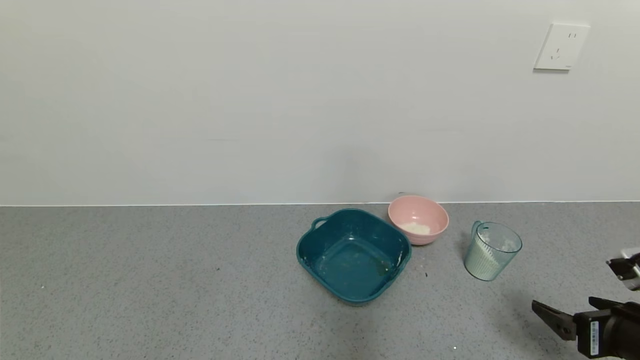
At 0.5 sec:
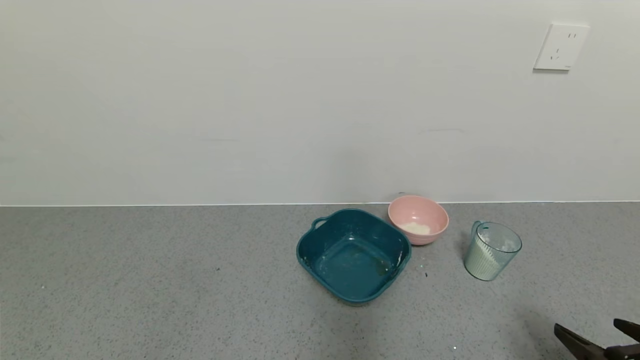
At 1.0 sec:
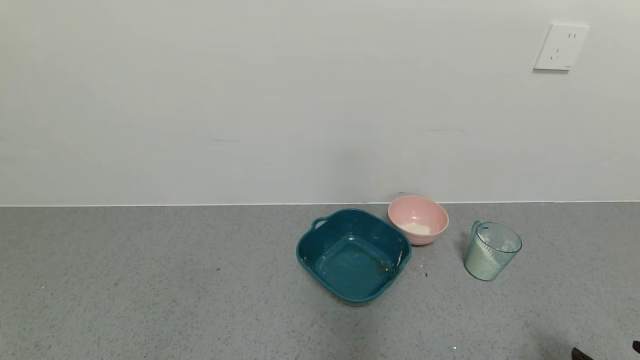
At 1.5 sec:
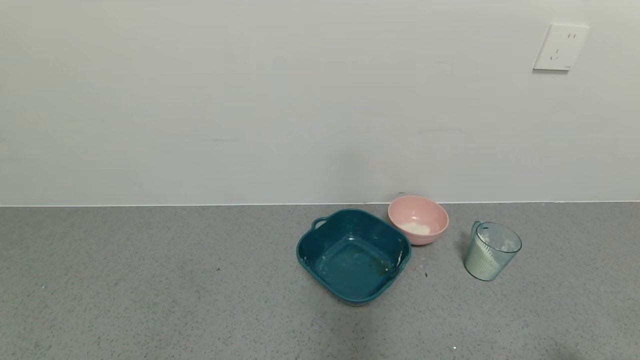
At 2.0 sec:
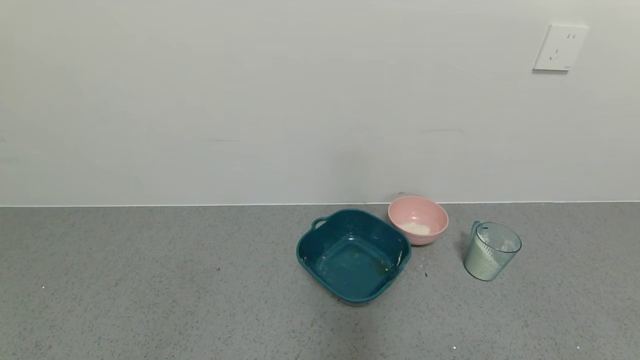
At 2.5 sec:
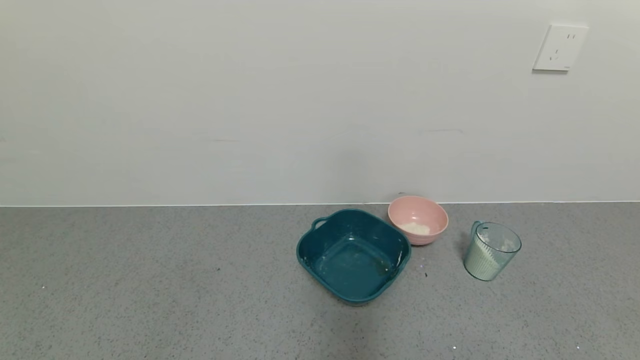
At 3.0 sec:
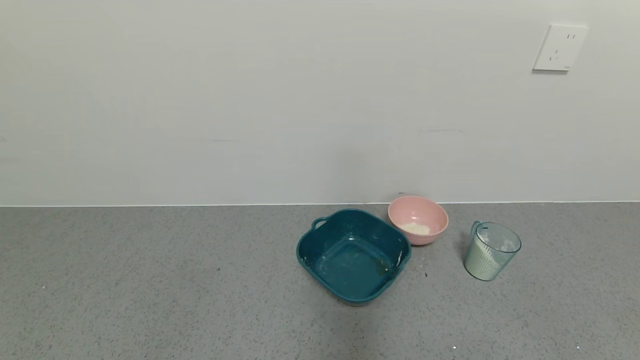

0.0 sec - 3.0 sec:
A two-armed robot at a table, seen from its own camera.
Task of the whole recording: use a gripper to pick up the cup and pour the powder into a bowl or tray.
0.0 sec - 1.5 sec: The right gripper shifts about 10 cm backward.

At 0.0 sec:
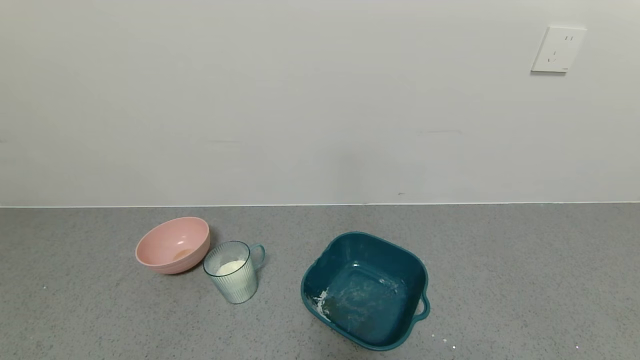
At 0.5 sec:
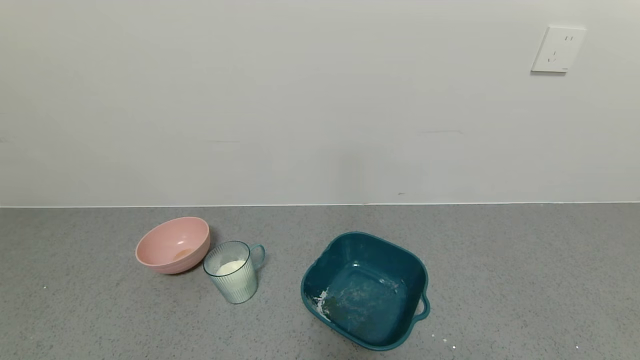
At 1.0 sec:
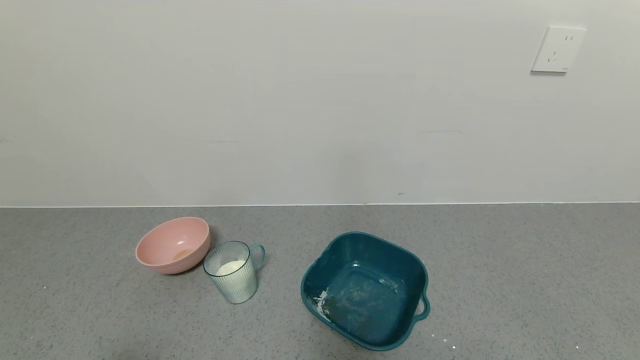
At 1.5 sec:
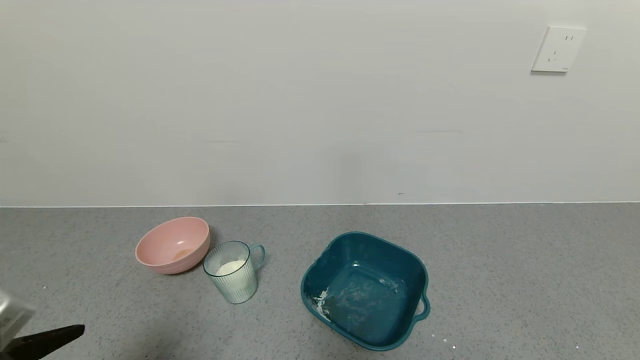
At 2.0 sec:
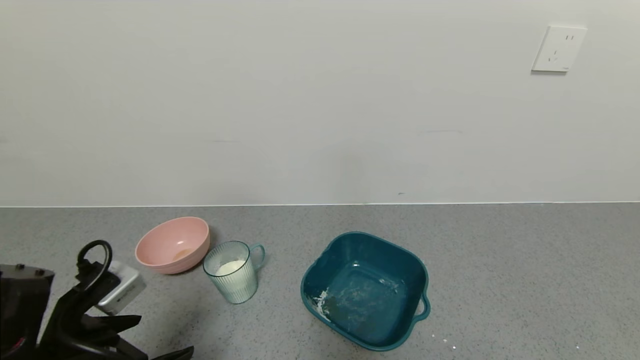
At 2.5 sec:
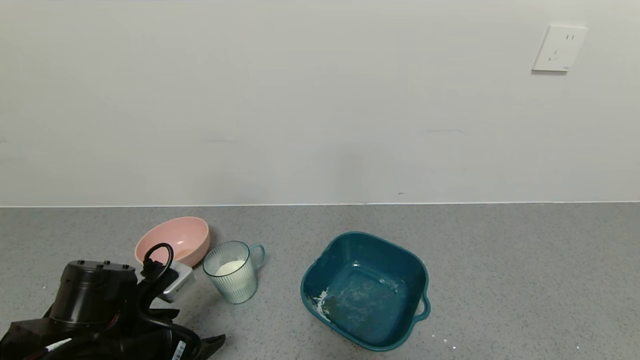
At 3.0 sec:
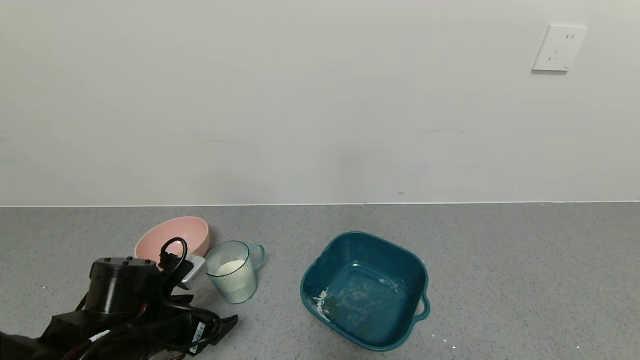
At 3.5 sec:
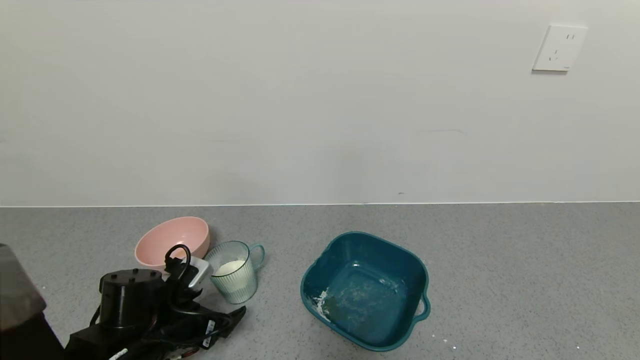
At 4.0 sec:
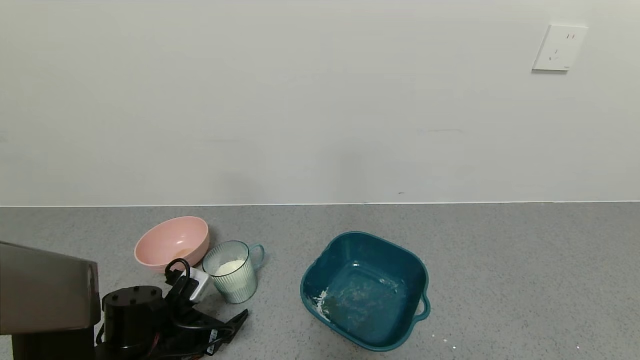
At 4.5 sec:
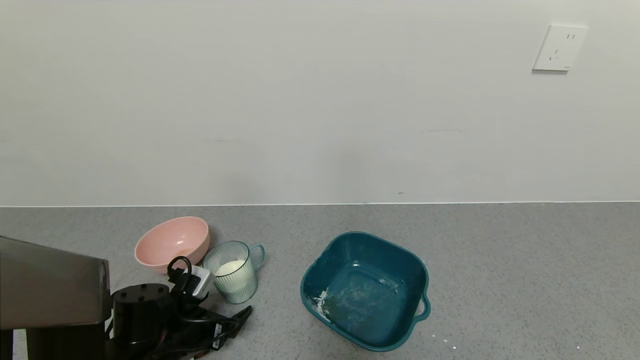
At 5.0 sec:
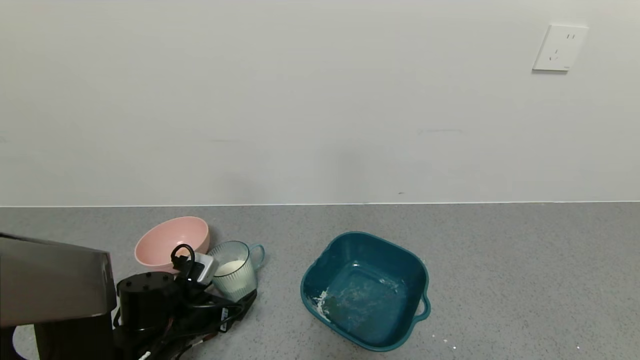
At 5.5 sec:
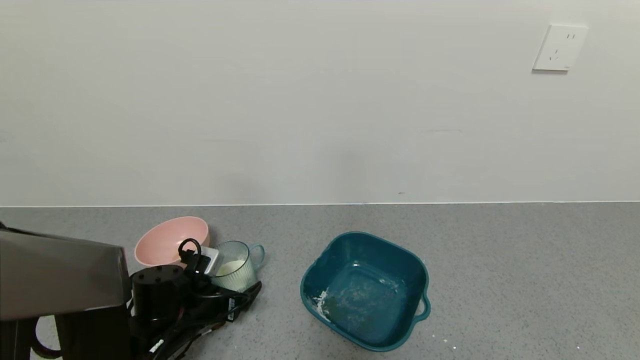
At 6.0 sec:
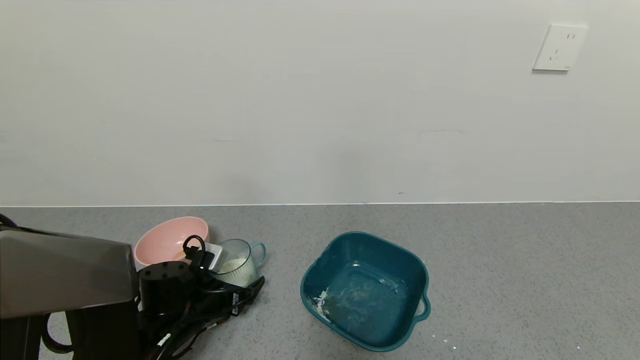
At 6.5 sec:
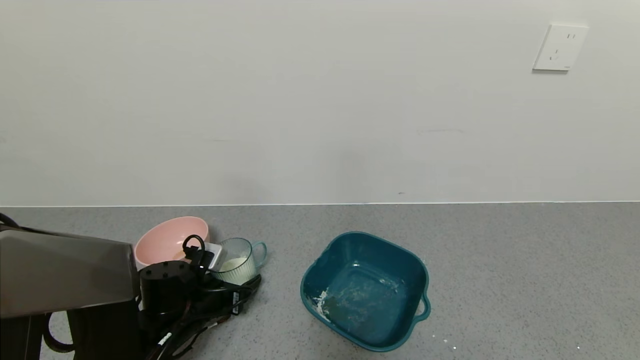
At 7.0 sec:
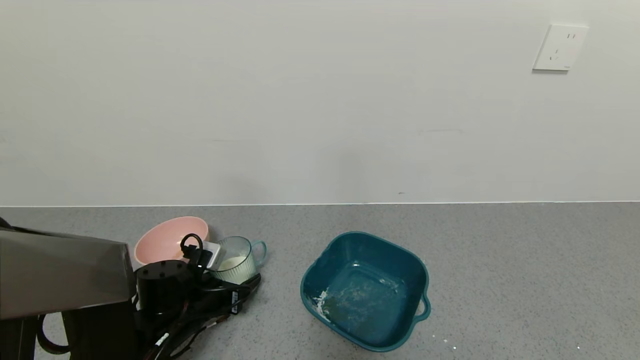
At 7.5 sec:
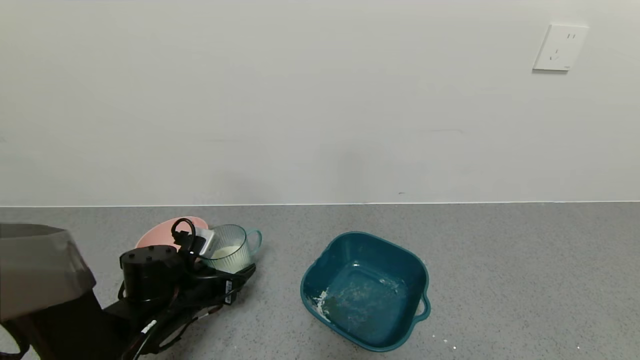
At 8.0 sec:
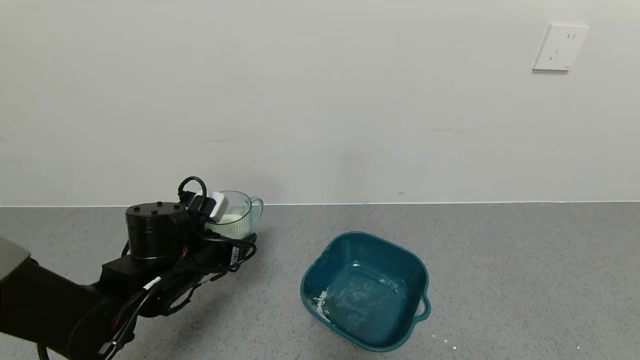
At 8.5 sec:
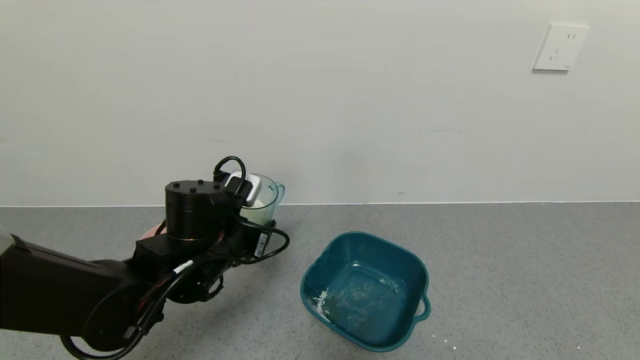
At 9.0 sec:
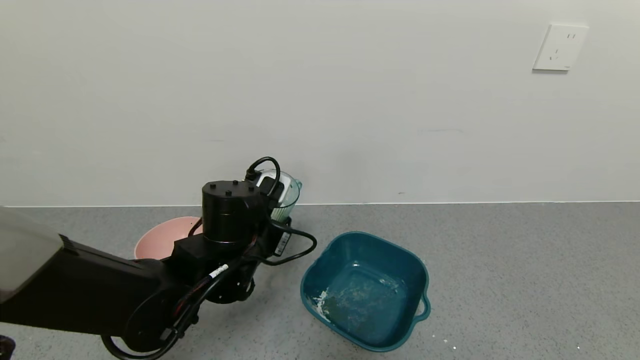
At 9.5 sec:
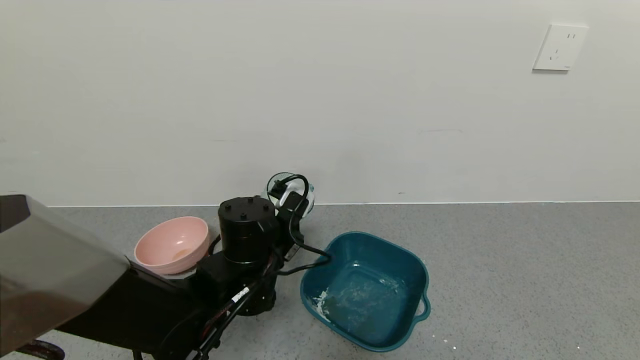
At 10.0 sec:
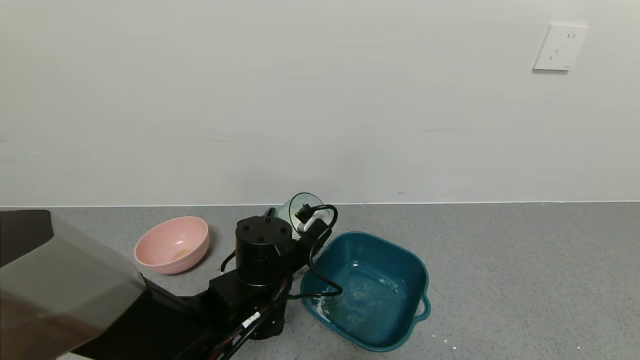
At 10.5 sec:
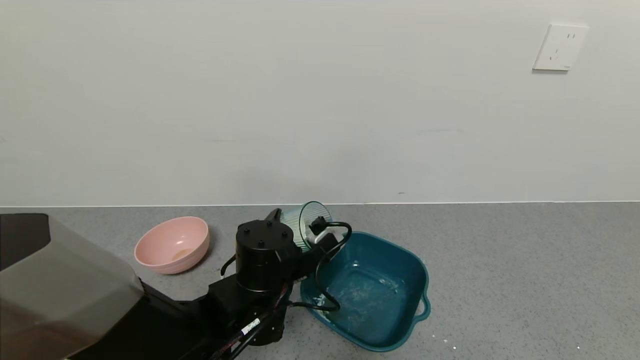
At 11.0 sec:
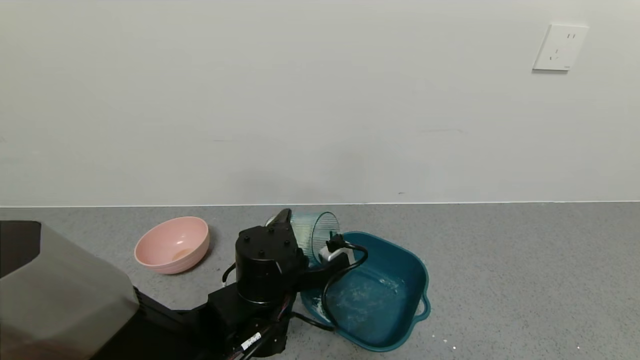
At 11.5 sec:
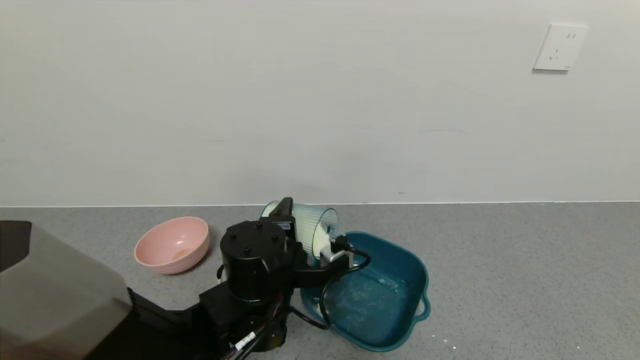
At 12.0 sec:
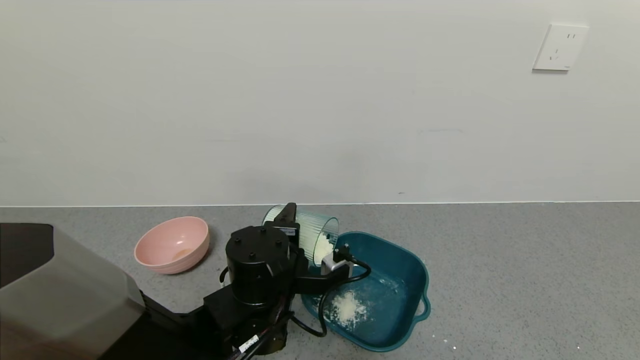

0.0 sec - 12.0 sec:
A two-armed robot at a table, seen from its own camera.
Task of the whole recording: use a gripper to pick up the cup and pour the powder into a bowl or tray.
Step, 0.0 sec - 6.0 sec: Grasp the glass of powder with the left gripper.
0.0 sec - 2.0 sec: The left gripper moves forward, roughly 15 cm.
2.0 sec - 4.0 sec: The left gripper moves downward and forward, some 15 cm.
4.0 sec - 6.0 sec: The left gripper travels forward by roughly 5 cm.
6.0 sec - 8.0 sec: The left gripper heads upward, covering some 10 cm, and closes its fingers.
8.0 sec - 10.0 sec: The left gripper shifts some 15 cm to the right.

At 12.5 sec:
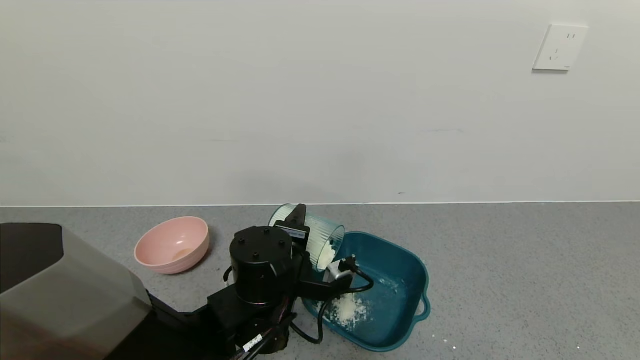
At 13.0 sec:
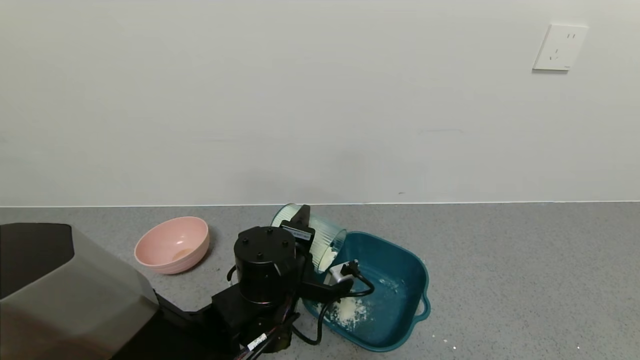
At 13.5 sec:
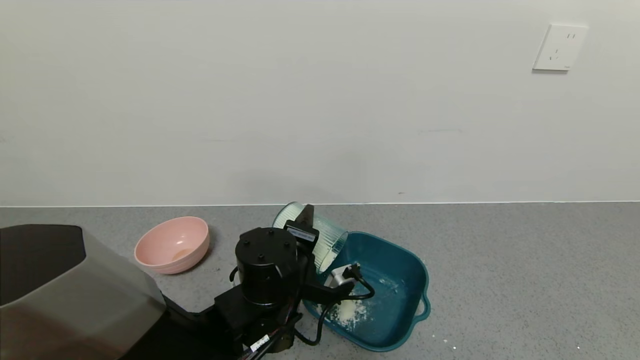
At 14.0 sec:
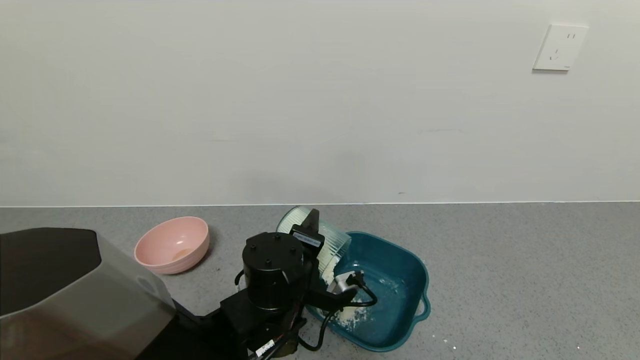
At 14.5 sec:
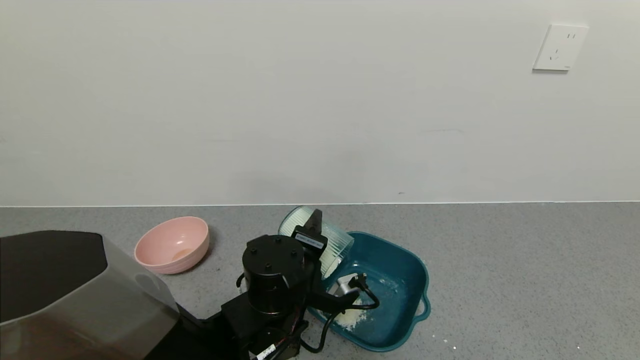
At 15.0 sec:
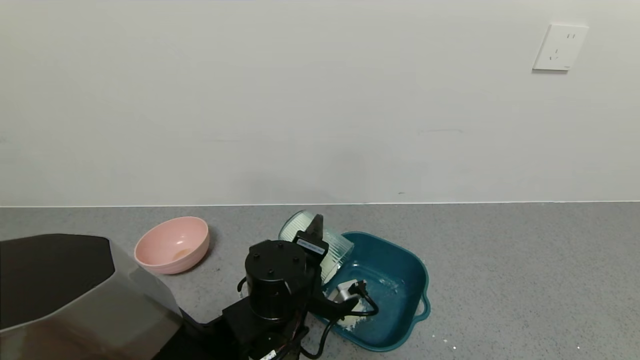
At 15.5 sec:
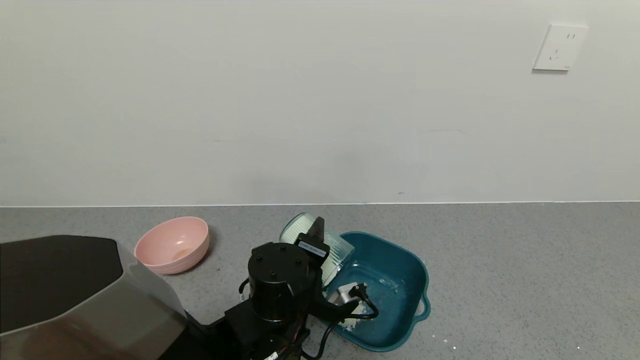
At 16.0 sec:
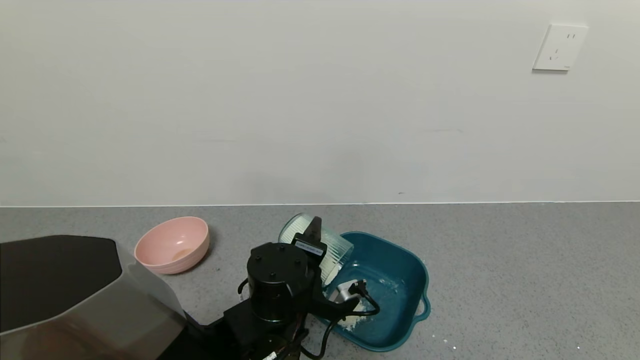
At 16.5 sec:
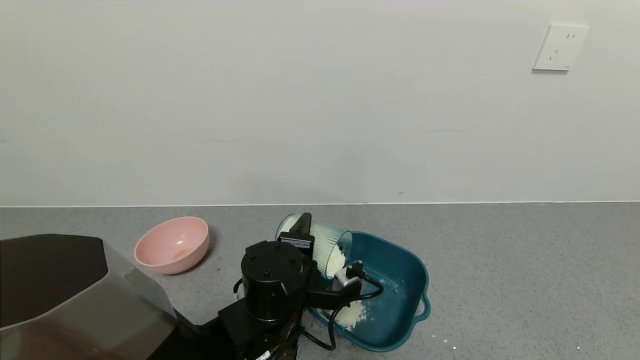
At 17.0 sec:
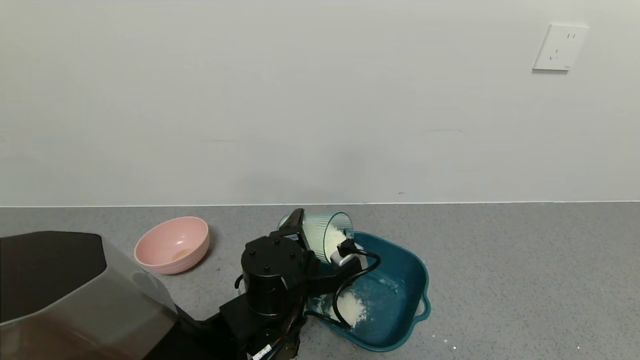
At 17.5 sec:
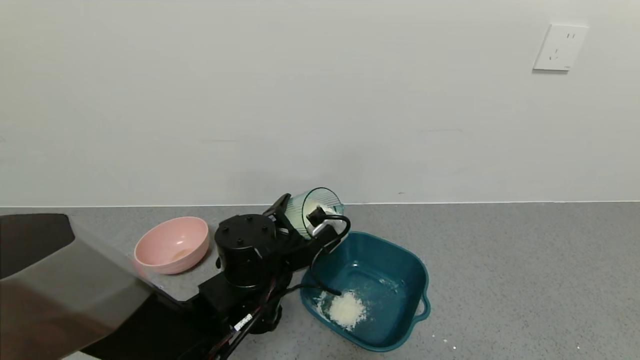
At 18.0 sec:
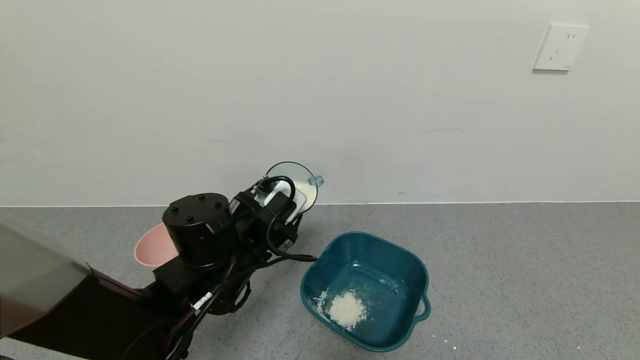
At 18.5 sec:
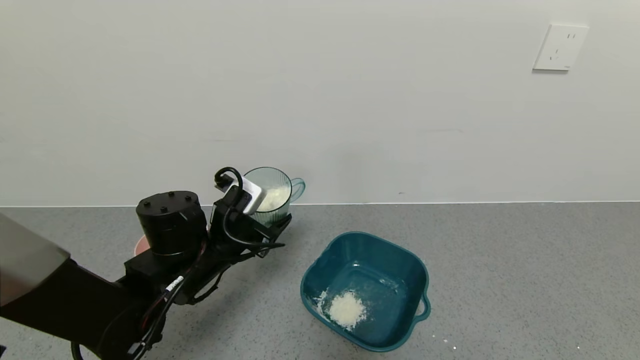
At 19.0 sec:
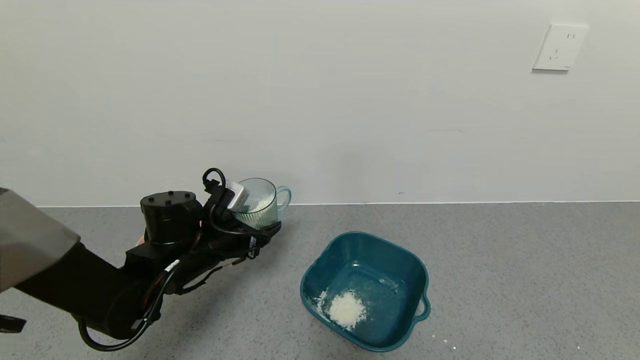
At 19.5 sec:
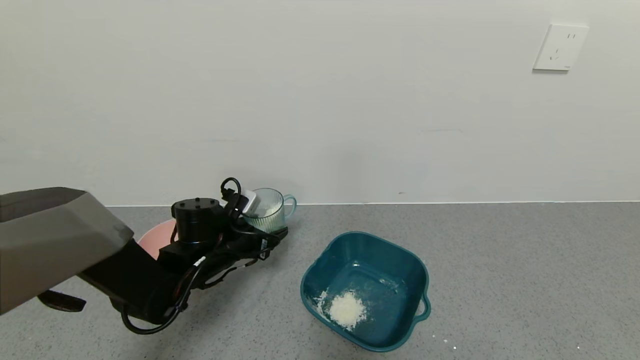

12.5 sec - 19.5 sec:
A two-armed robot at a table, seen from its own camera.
Task of the whole recording: use a gripper to pick up the cup and pour the powder into a bowl or tray.
Step, 12.5 sec - 15.5 sec: Pour the powder into the pink bowl with the left gripper.
12.5 sec - 14.5 sec: The grippers move only a little.
14.5 sec - 16.0 sec: Neither gripper changes place.
17.5 sec - 19.5 sec: The left gripper shifts approximately 15 cm to the left and forward.
